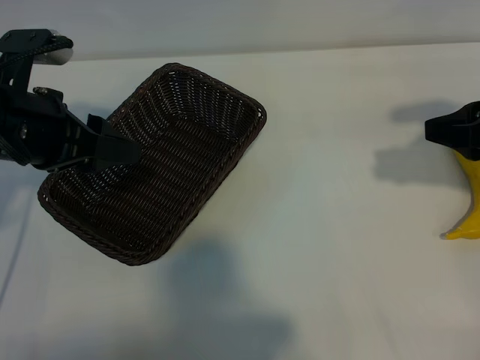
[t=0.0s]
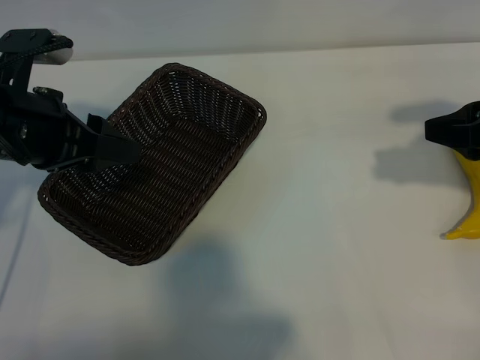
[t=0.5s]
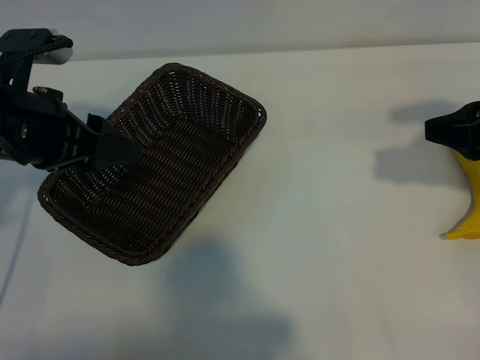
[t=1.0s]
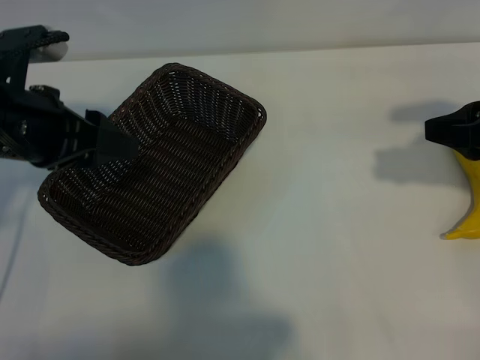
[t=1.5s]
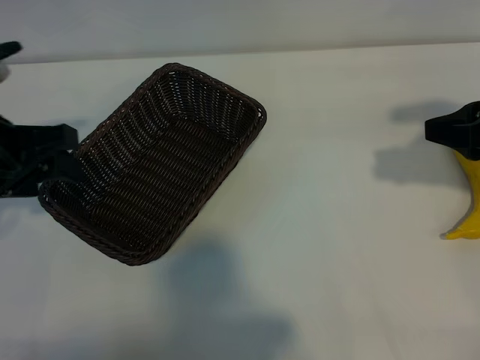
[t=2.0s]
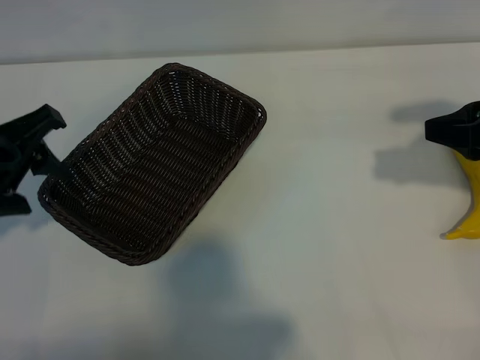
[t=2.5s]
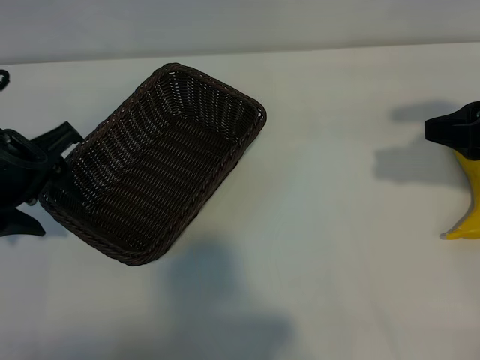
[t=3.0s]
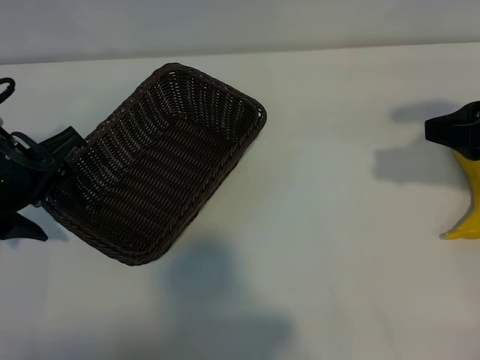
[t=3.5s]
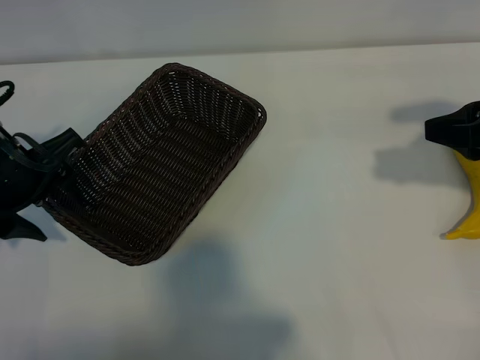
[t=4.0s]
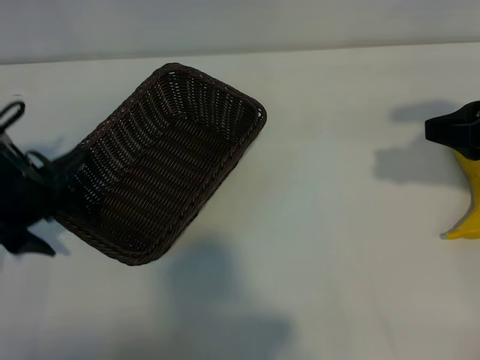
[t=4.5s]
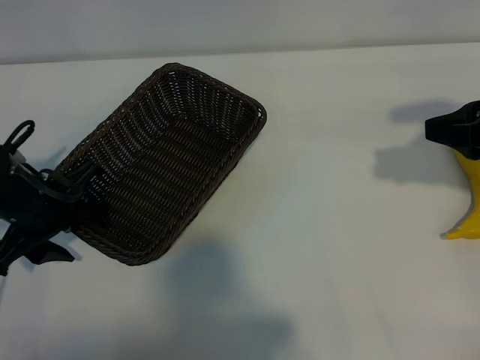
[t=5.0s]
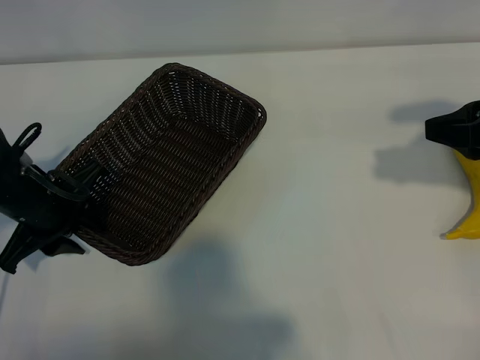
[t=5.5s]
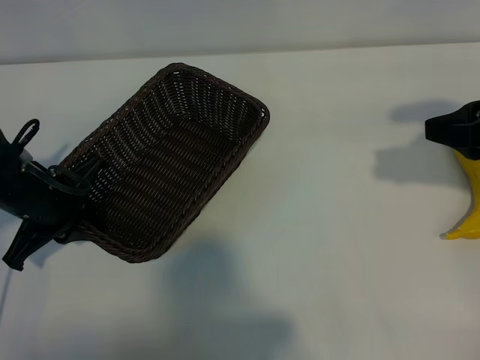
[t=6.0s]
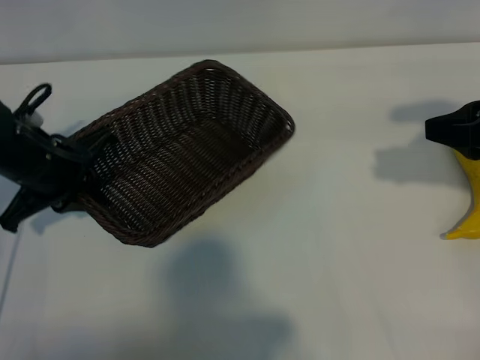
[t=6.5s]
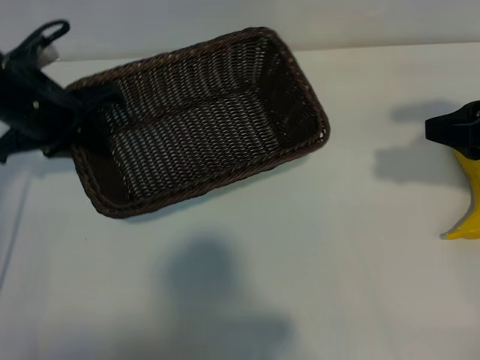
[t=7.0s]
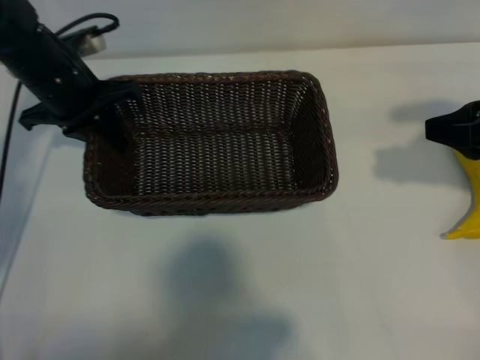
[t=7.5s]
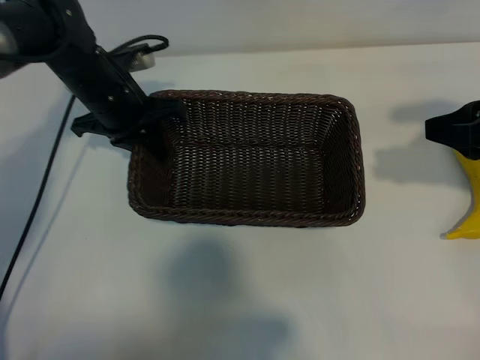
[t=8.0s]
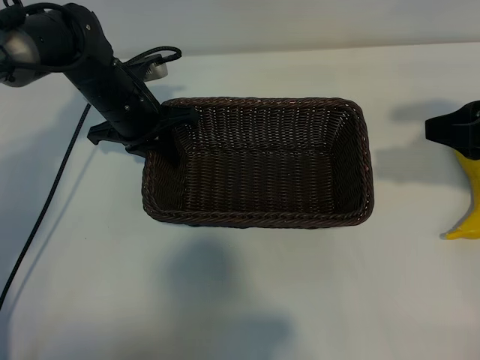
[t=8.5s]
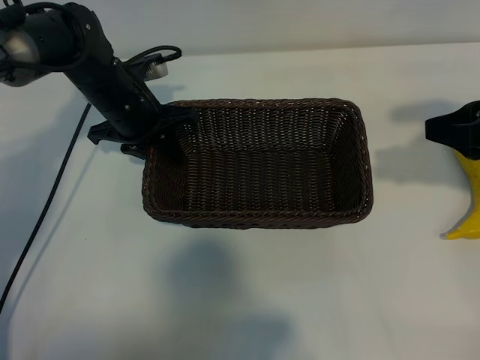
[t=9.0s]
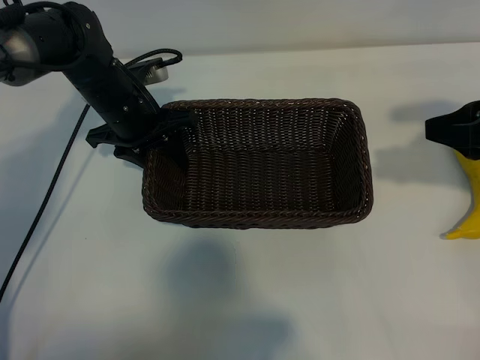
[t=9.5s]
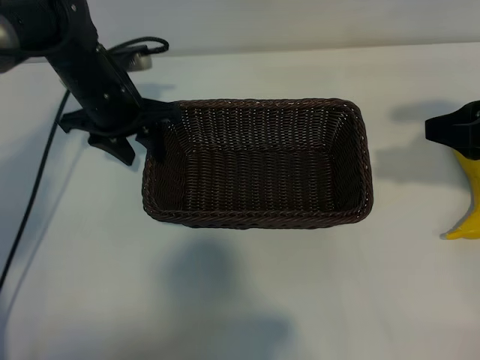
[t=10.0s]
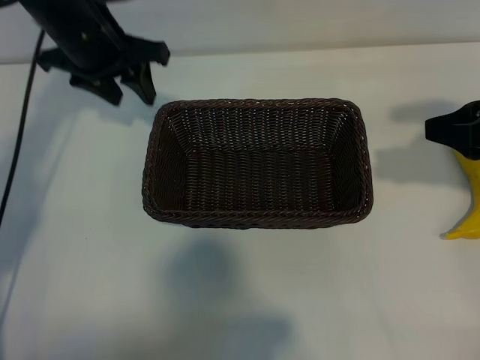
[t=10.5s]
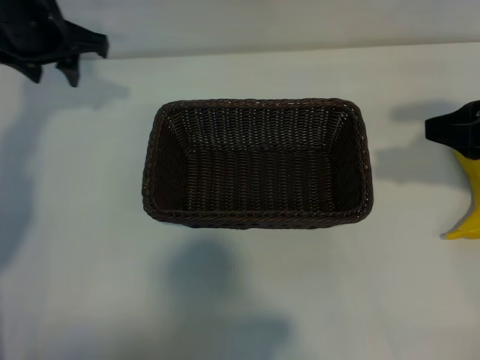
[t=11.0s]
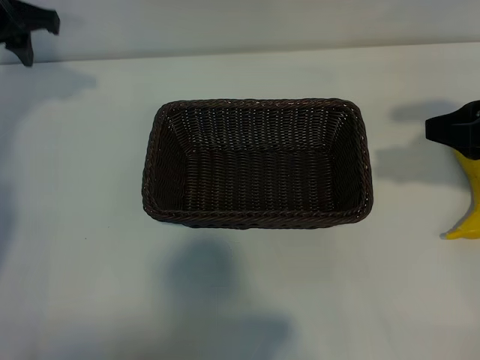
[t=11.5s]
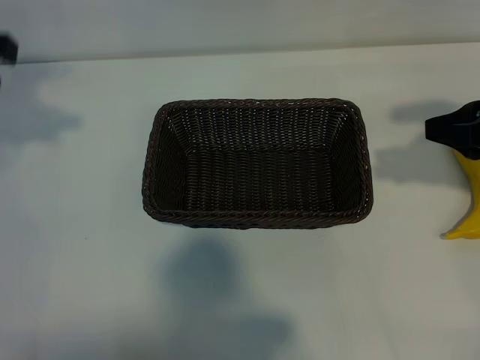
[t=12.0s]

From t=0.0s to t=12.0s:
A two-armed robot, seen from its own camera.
Task of the whole recording: pick up the banana and put it into the basket.
Step, from t=1.5s to t=5.5s: Grasp the basket with the left gripper.
Step, from t=6.0s to t=9.5s: Place the basket in the center of the table with the left gripper.

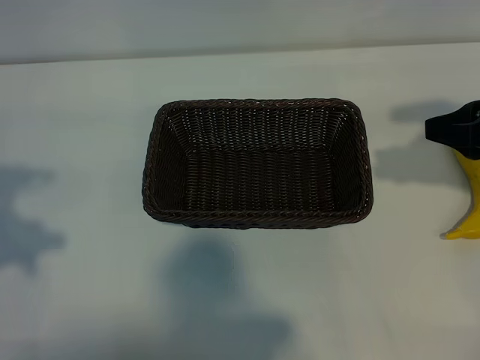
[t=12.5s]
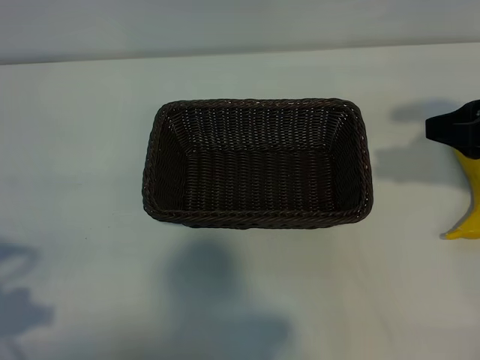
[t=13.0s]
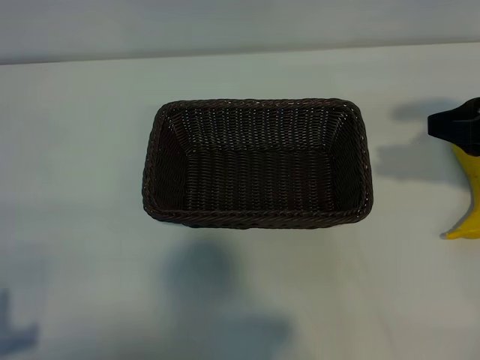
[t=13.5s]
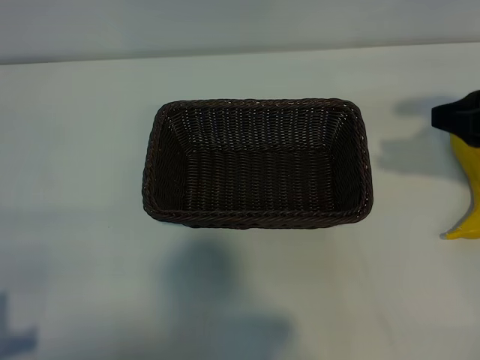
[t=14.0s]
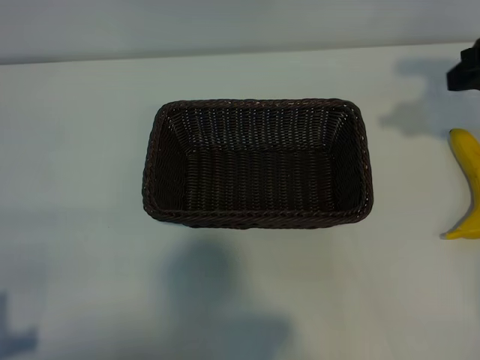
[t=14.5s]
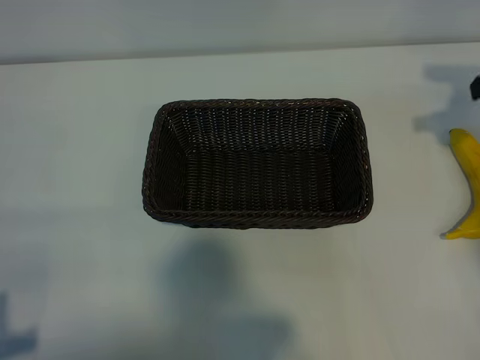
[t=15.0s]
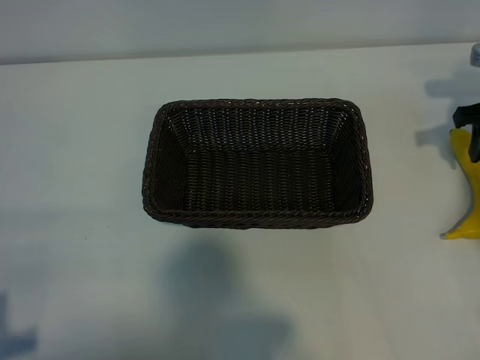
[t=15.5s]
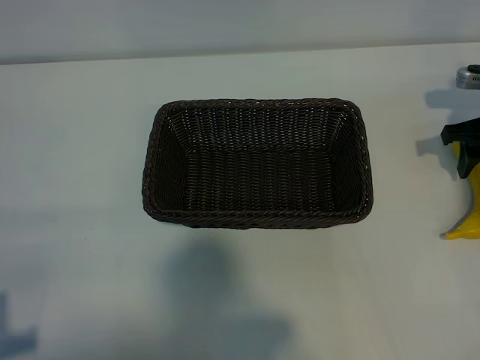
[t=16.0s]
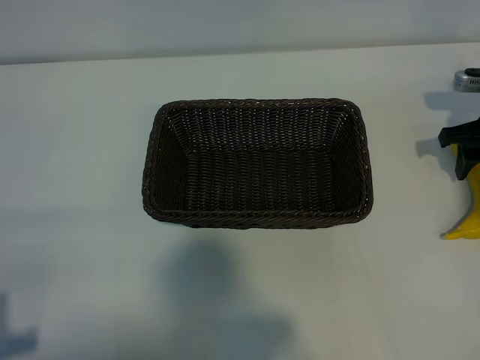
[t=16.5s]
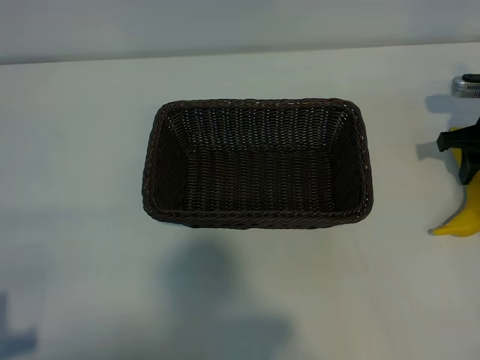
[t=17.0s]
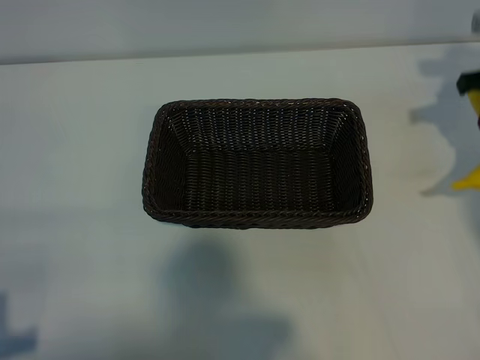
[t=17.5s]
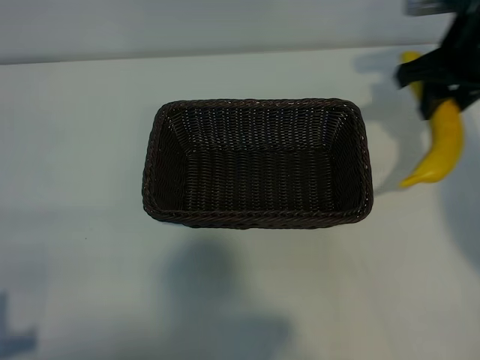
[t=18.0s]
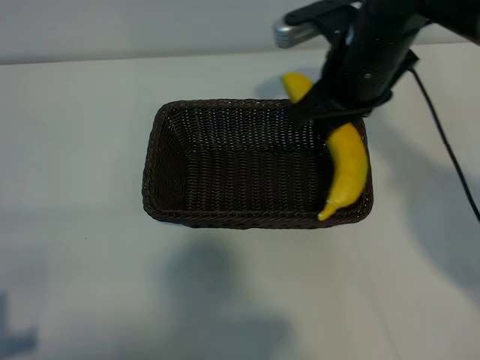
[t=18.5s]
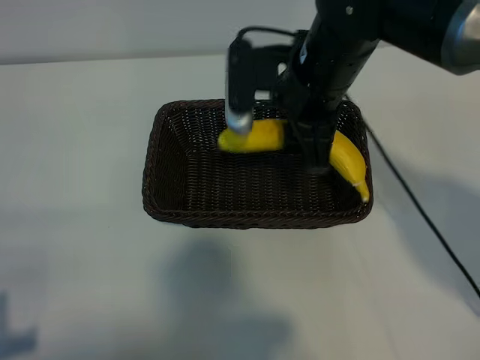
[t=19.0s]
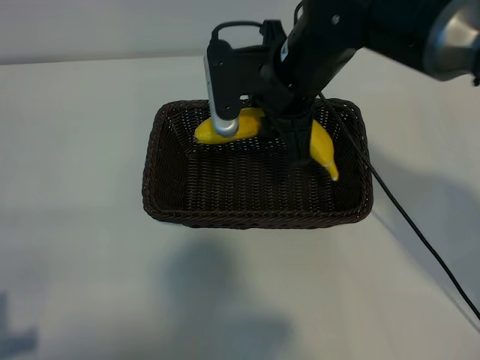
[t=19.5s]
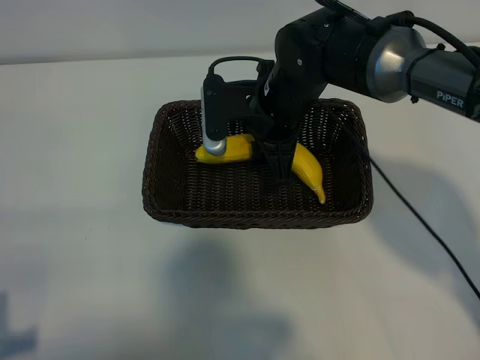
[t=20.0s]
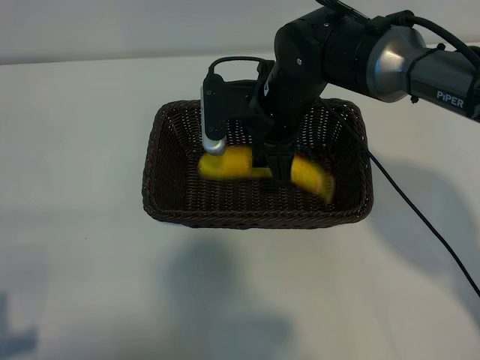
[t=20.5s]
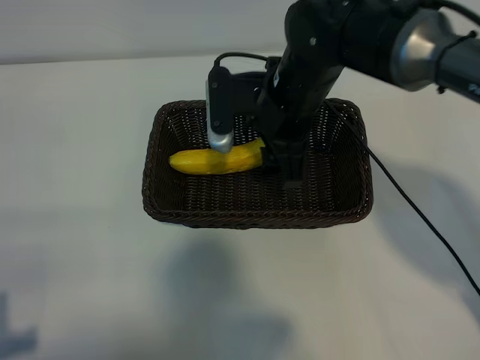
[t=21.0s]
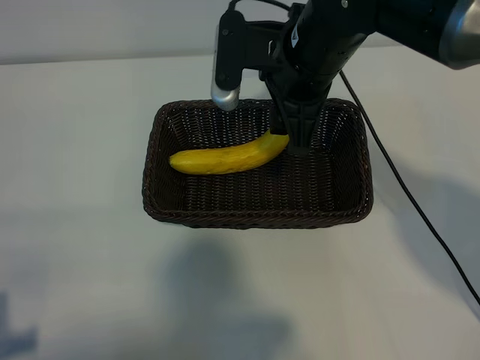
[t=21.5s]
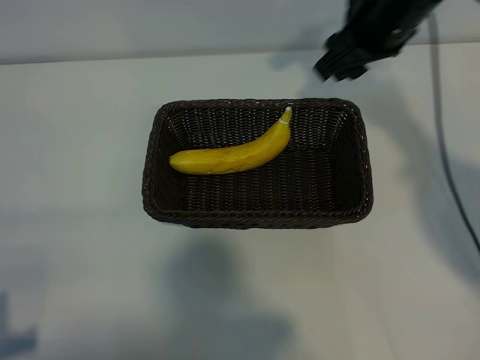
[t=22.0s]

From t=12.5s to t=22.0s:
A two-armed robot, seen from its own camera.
Task of the whole recording: pick up the banana and put it into the basket.
Step, from t=12.5s to t=16.5s: Grasp the banana with right gripper.
Step, from t=17.0s to t=21.0s: Place the banana in the basket with right gripper.

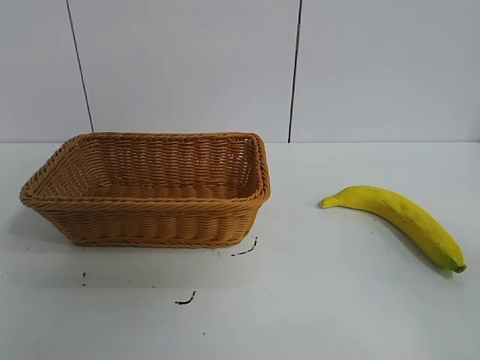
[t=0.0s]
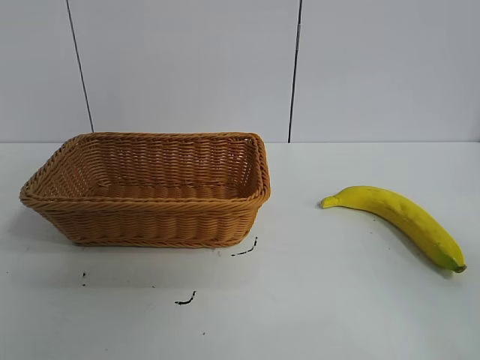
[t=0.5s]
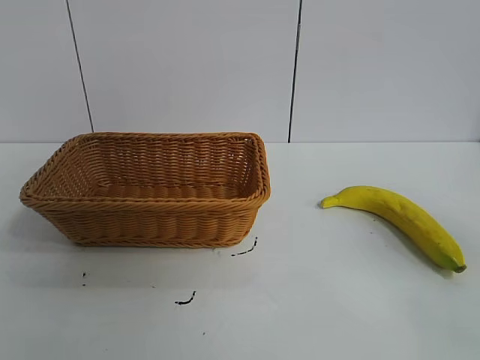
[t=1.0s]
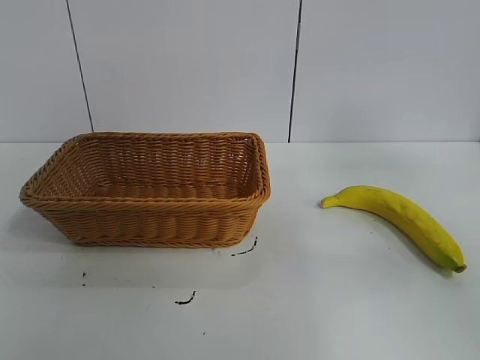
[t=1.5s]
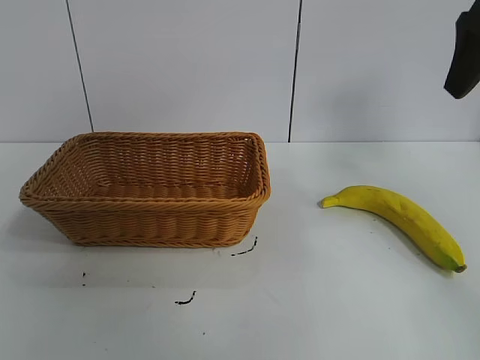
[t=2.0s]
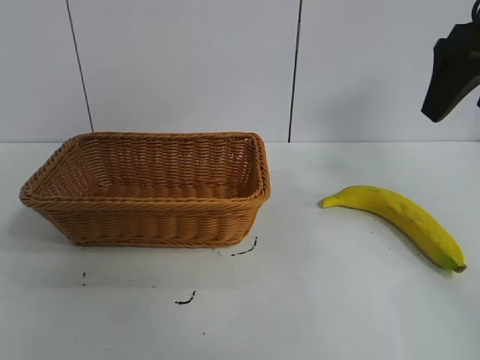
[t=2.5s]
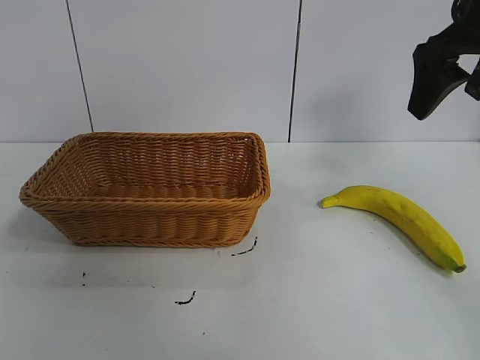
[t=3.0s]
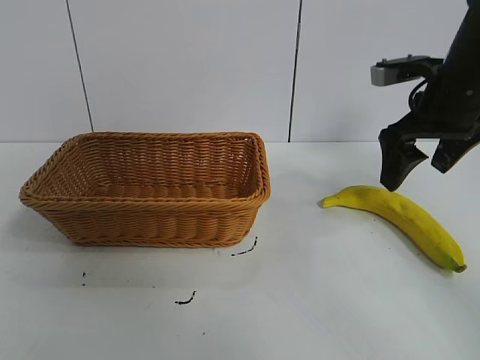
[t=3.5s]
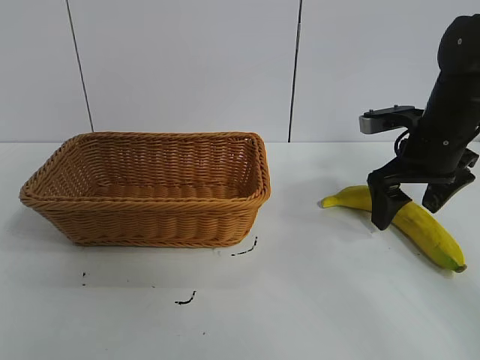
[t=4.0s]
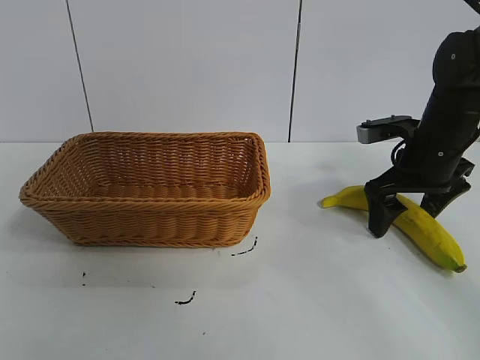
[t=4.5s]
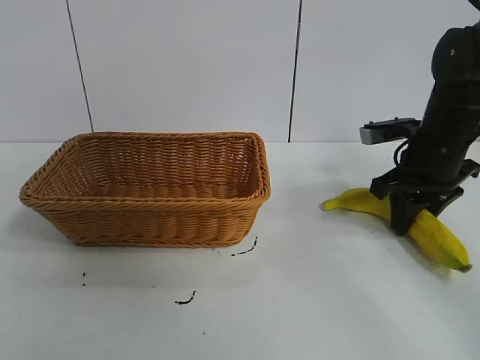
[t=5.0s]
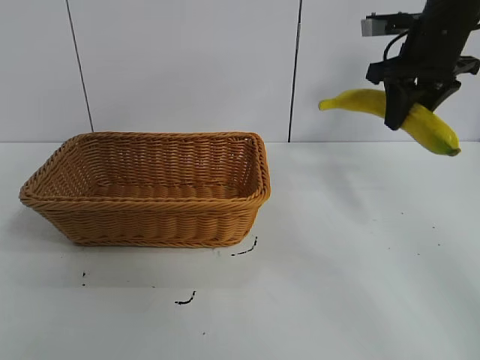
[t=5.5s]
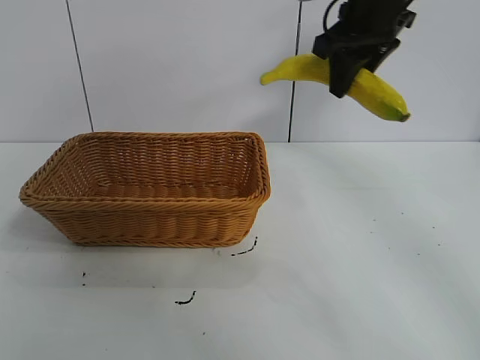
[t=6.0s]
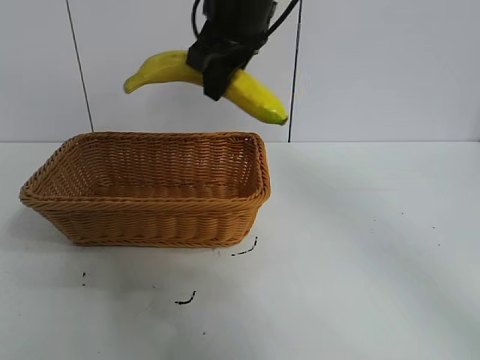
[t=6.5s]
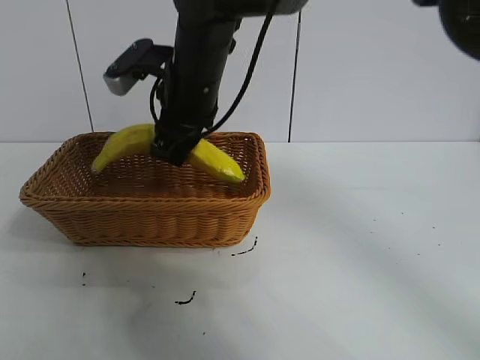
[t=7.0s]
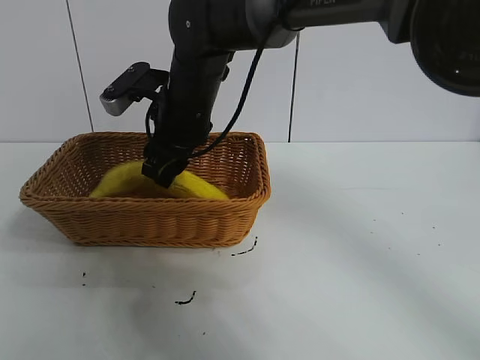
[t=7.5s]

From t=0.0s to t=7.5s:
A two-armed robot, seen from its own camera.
Task of the whole recording: pick up the banana and put it into the basket.
Step, from t=1.0s to t=4.5s: Grasp the banana with right gripper.
